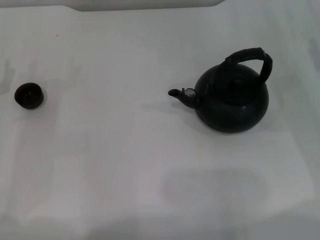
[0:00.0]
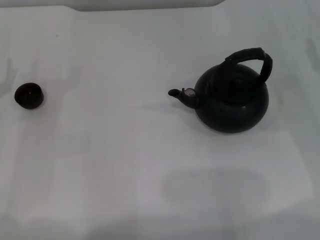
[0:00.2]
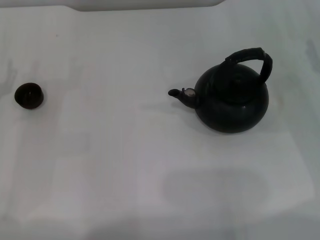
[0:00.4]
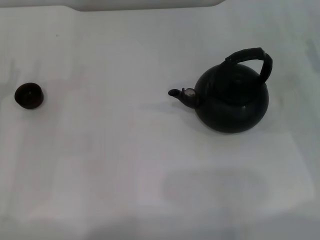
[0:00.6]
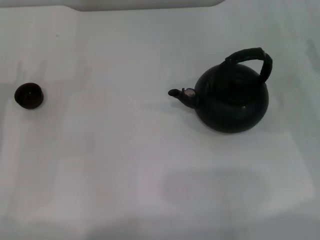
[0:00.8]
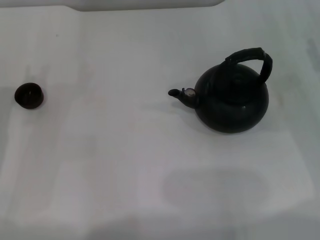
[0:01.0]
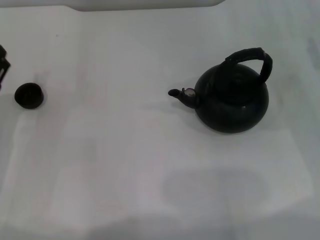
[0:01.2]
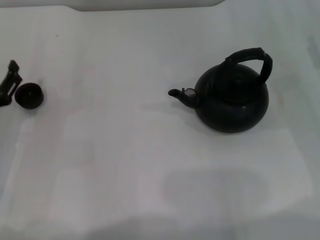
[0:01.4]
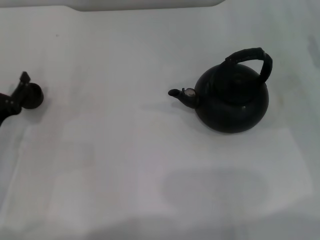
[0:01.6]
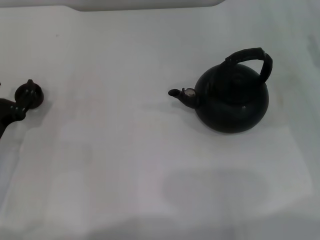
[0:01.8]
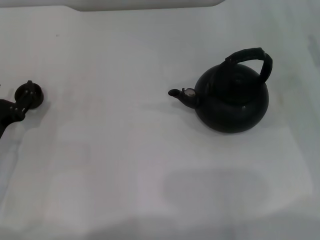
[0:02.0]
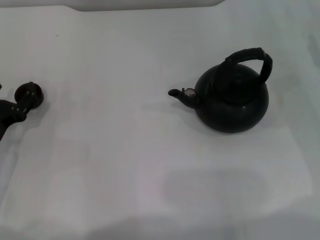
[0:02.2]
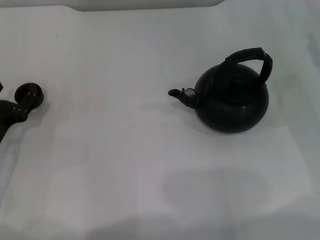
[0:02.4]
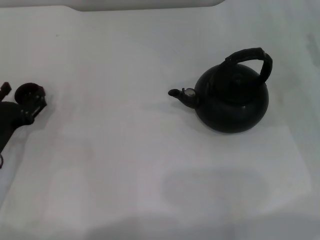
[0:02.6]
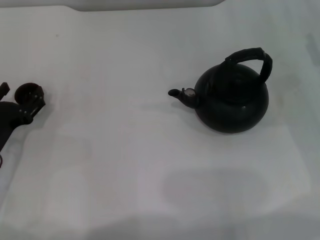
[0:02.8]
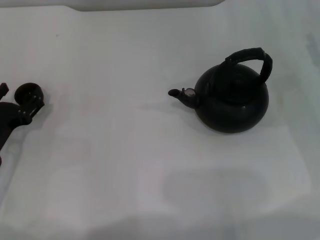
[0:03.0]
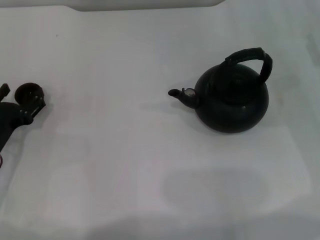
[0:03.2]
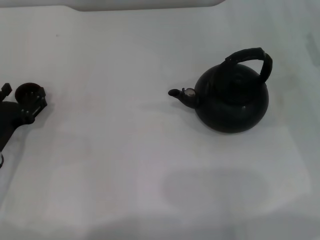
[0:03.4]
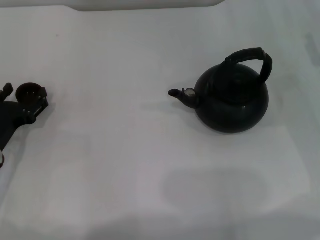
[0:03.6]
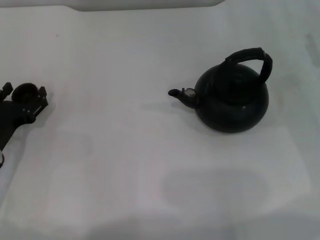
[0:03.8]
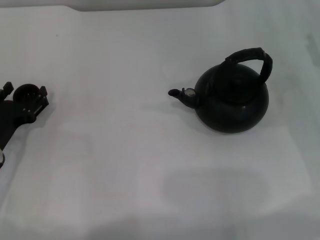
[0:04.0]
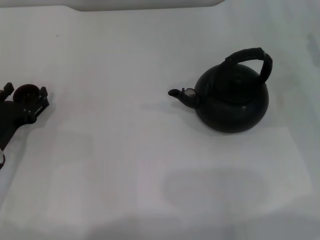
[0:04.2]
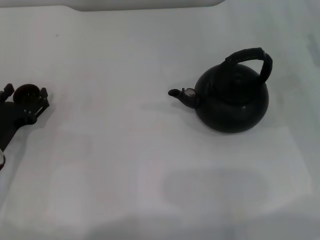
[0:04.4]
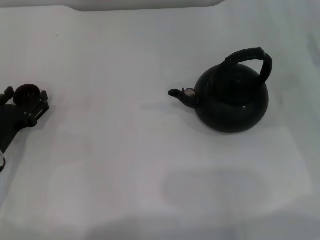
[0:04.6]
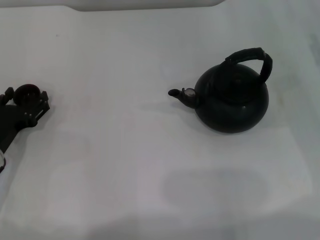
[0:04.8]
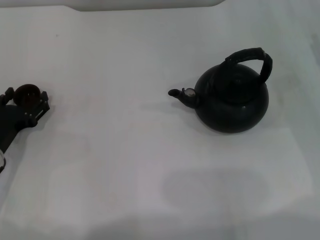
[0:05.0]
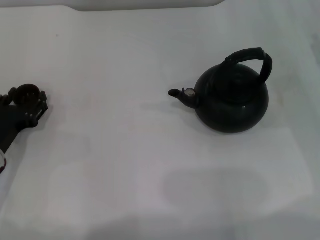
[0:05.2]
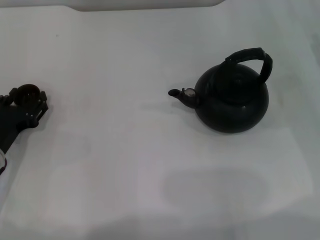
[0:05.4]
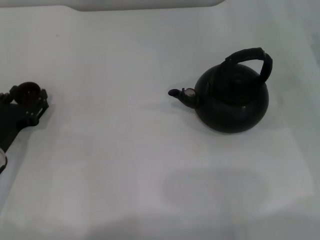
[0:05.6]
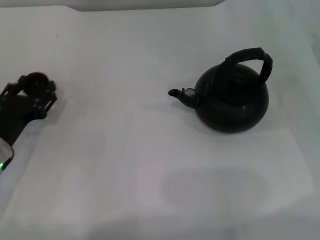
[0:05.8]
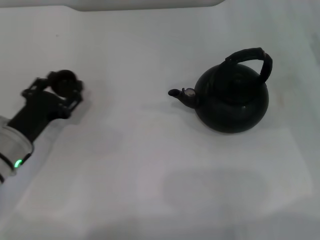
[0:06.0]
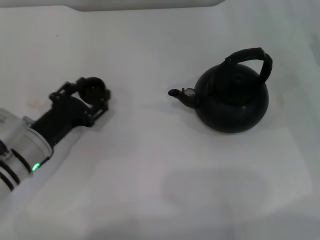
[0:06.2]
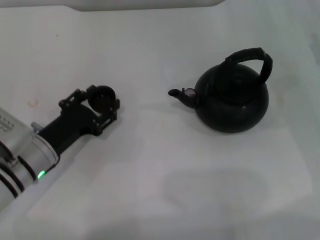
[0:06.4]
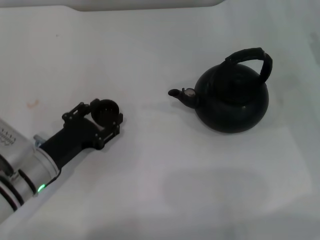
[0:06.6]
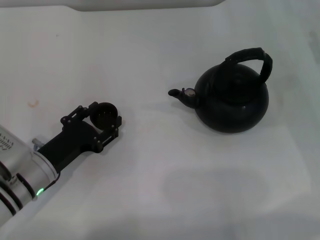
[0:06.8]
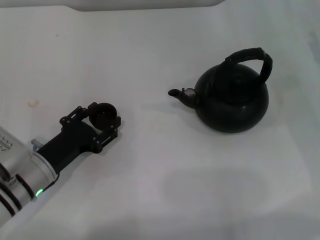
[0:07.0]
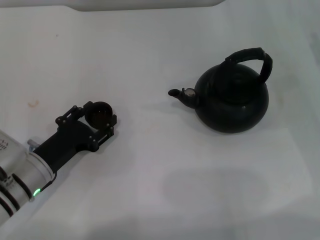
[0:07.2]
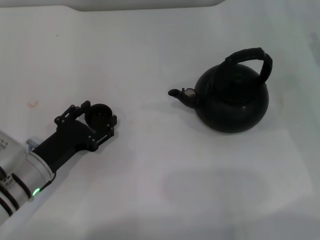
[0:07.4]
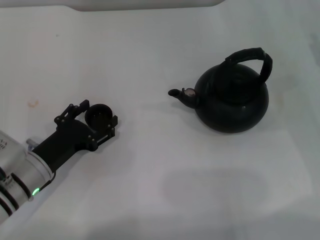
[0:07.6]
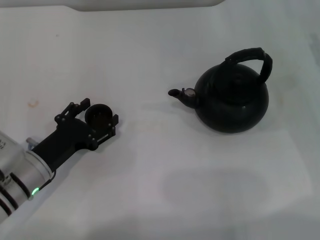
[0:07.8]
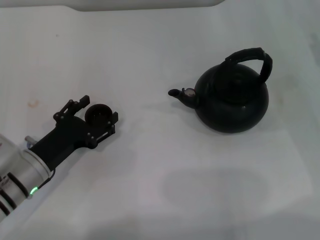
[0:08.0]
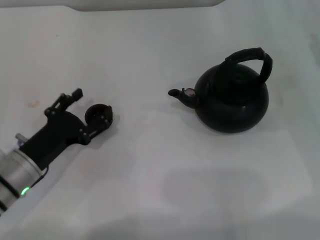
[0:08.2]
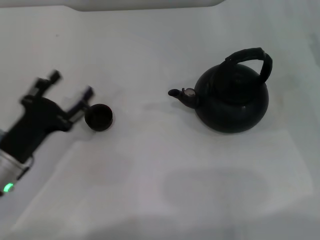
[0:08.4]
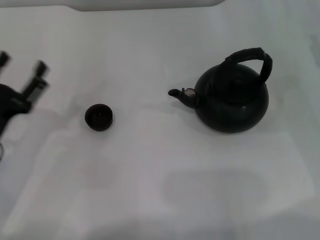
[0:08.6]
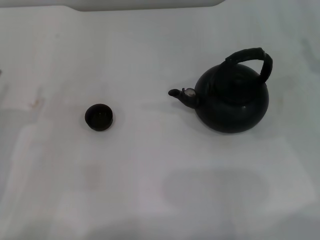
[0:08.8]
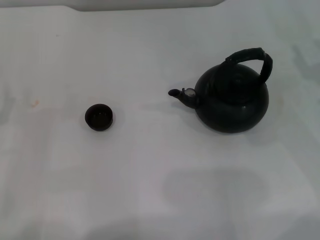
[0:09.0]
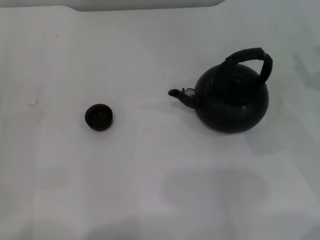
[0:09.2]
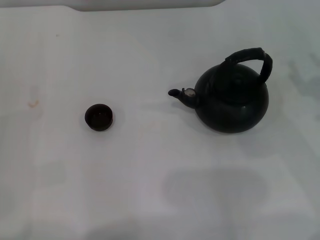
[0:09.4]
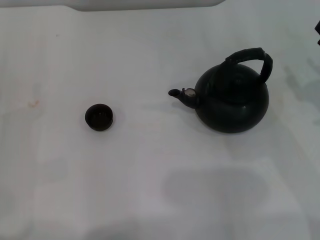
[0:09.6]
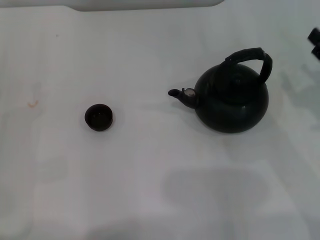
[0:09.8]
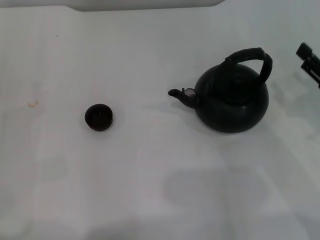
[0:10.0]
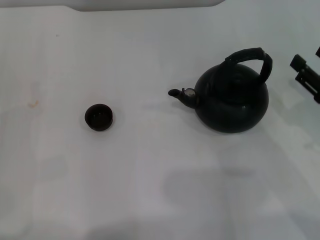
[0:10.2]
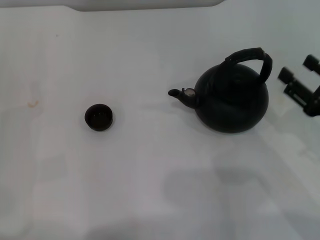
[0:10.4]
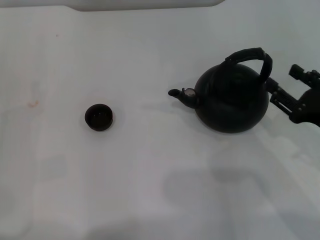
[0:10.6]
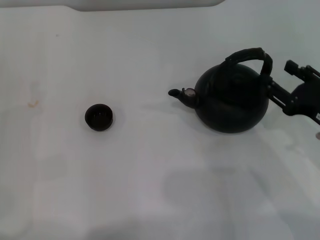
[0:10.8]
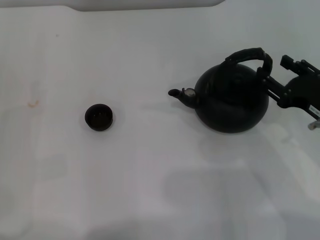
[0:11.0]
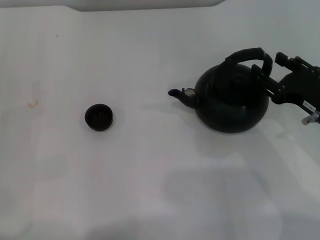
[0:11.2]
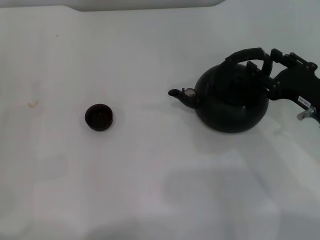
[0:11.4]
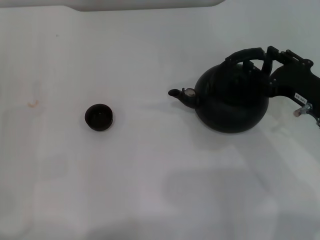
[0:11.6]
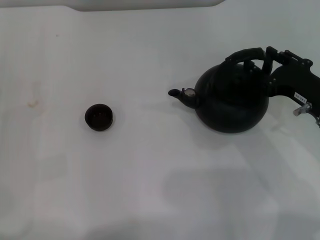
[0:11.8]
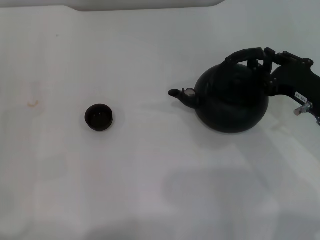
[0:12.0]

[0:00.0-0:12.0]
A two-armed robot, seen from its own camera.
Task of the whole recording: Grasp the handle of the teapot with one hand and pour tea into the teacup.
Step, 0:00.0 to 0:06.0: Pick up the teacup with the left gripper.
Step, 0:06.2 to 0:08.4: Place the teacup in the center of view with the left gripper.
0:00.0 to 0:01.6: The left gripper changes place by approximately 5 cm.
0:01.6 to 0:03.0: There are only small adjustments of the grippers.
0:03.0 to 0:04.4: Both grippers stay about where they are.
0:04.4 to 0:06.0: The left gripper closes up.
0:06.0 to 0:07.6: The left gripper opens.
0:07.6 to 0:09.0: The left gripper moves to the left, some 10 cm.
0:09.0 to 0:10.4: The right gripper travels backward by about 10 cm.
0:10.4 to 0:12.0: The right gripper moves forward, some 5 cm.

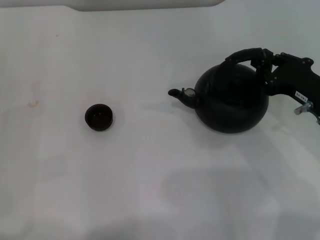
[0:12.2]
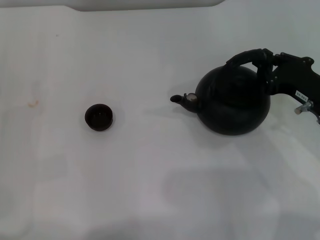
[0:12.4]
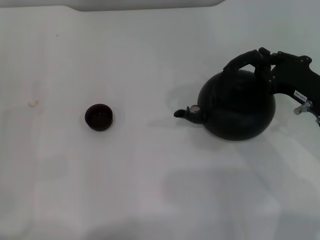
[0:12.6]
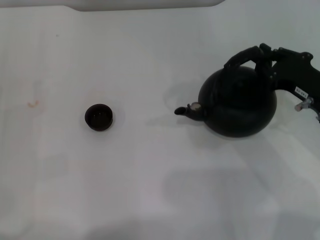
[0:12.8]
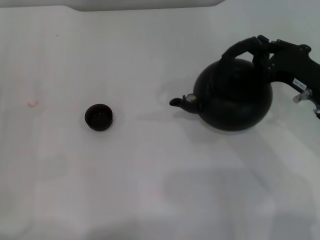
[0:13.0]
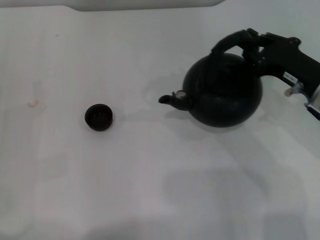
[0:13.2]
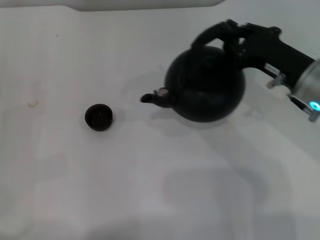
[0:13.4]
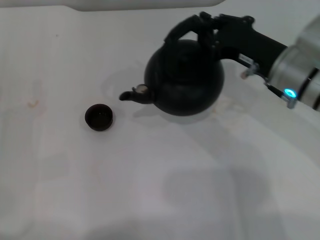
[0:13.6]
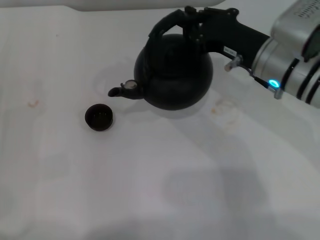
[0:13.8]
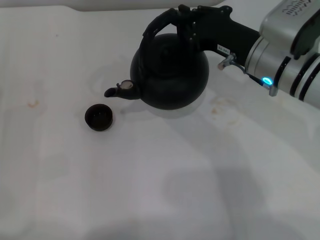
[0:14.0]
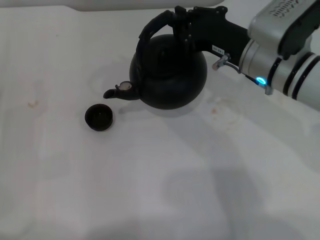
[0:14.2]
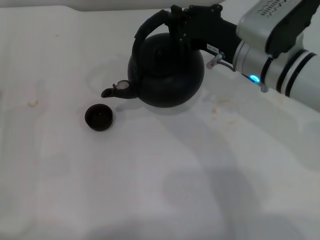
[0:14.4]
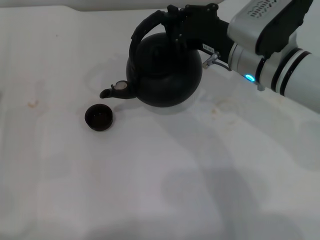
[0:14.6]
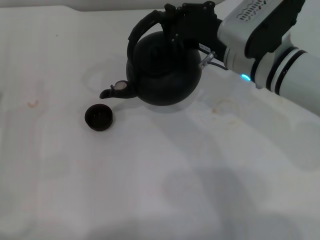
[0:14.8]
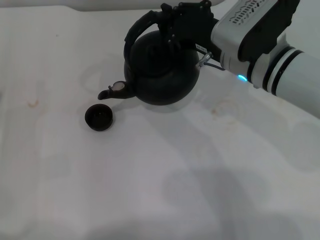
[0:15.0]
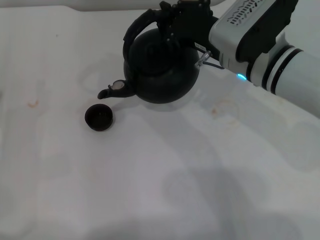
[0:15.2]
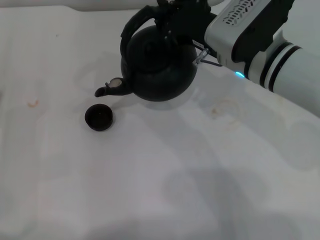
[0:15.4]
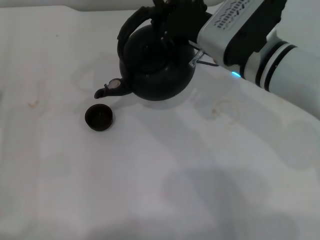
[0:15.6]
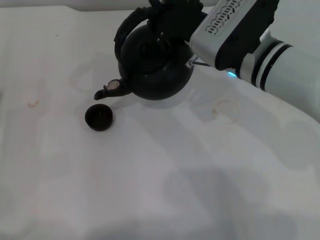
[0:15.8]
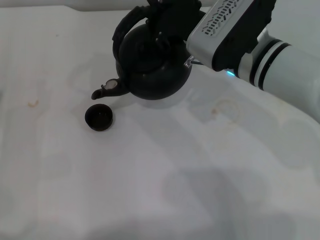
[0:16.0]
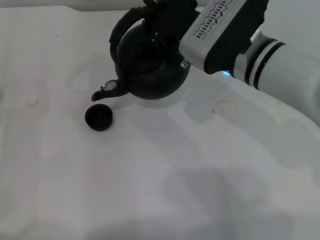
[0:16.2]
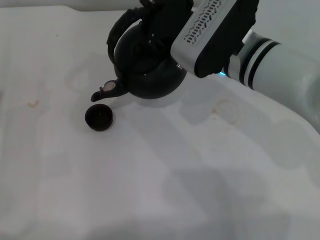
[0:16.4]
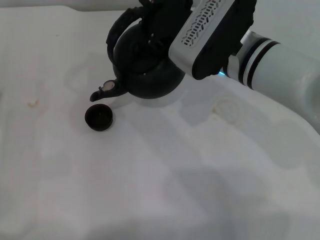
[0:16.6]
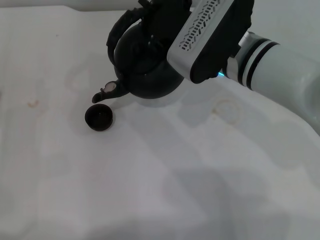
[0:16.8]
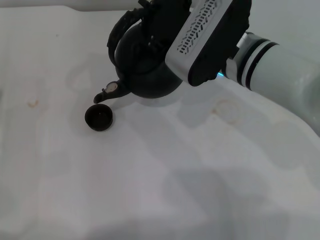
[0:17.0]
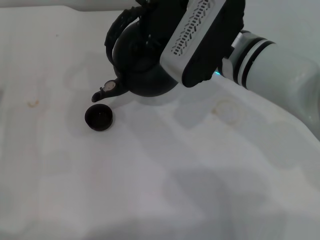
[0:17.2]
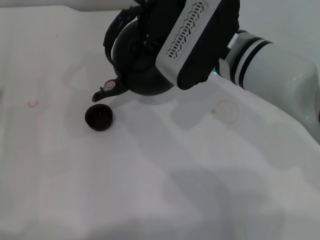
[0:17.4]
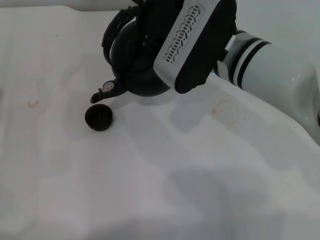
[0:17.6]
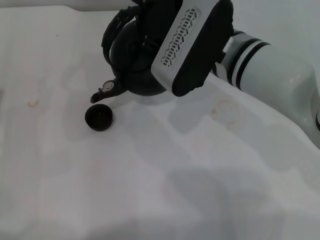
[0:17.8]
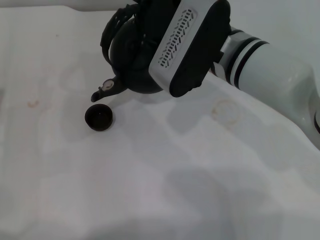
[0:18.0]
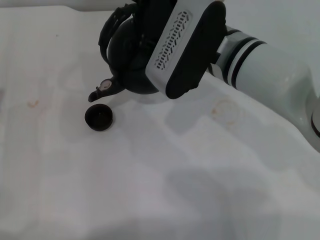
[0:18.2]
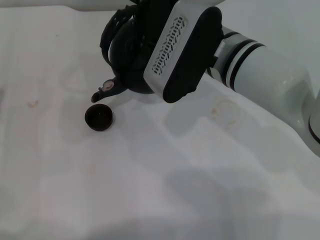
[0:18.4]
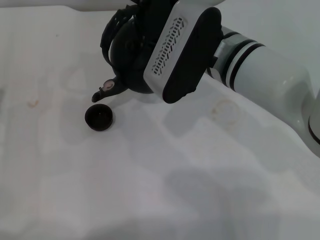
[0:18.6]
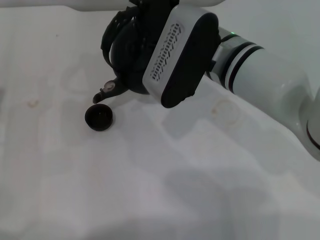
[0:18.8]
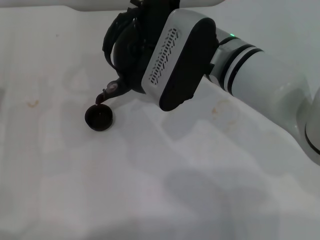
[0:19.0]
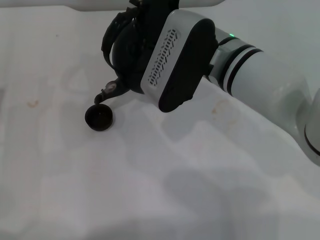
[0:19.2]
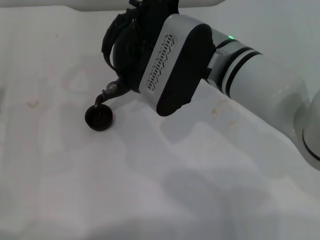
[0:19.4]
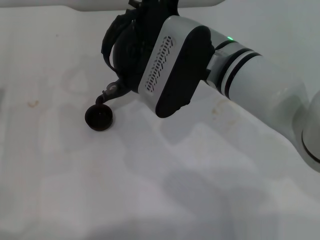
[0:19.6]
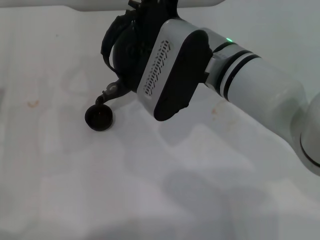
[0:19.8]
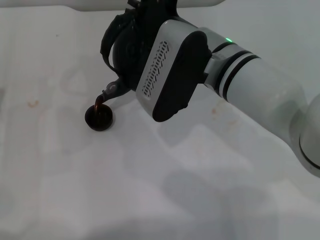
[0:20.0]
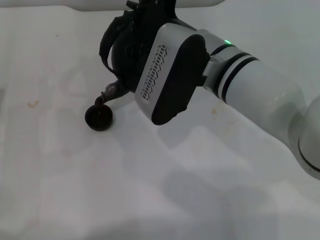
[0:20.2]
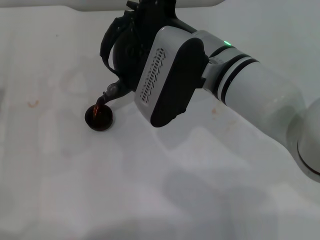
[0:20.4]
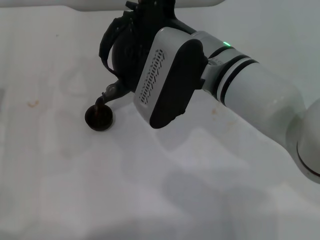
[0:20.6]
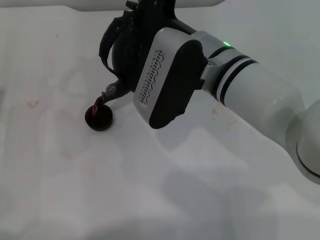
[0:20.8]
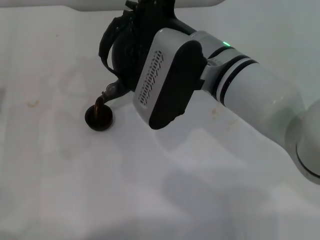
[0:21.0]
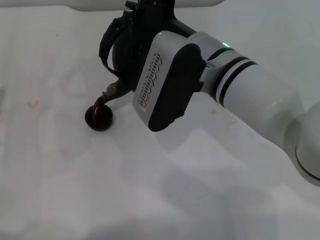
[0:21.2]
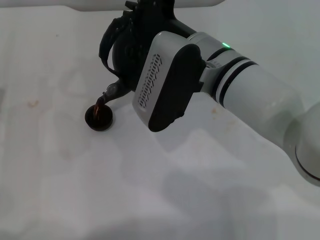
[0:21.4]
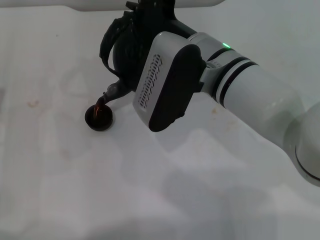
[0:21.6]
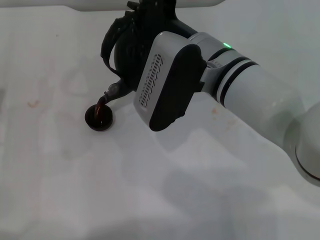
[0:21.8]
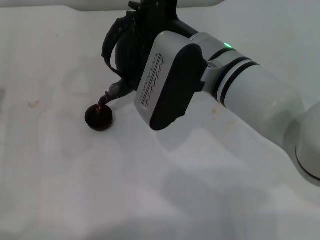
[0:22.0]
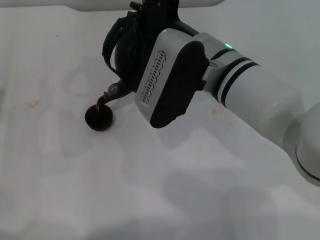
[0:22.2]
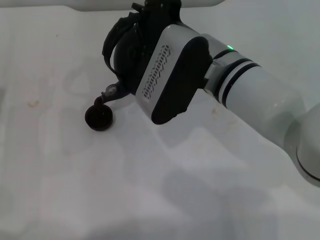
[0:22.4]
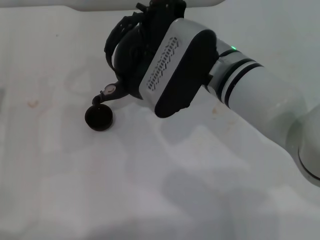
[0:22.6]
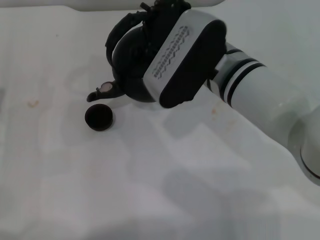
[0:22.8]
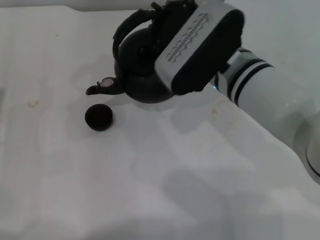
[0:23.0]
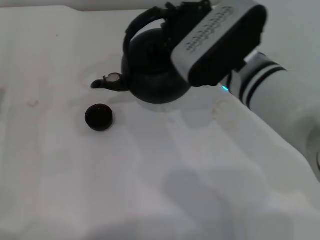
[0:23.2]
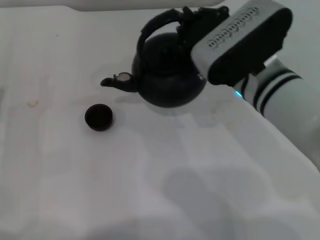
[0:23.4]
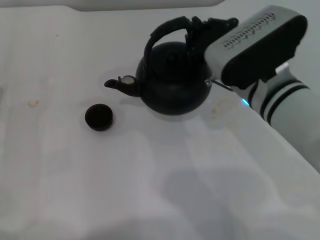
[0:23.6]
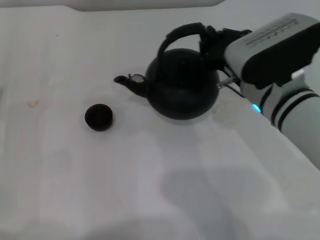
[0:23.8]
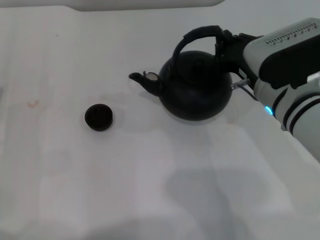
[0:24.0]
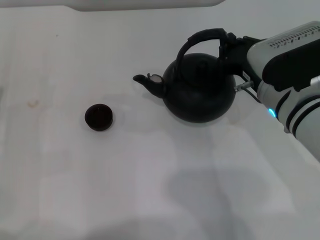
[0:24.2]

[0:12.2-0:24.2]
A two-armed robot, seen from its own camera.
Task of the whole recording: Grasp the handle of the teapot with one hand and pour tea into the teacup.
Step, 0:13.4 to 0:23.2: Pour tea into the teacup with the right gripper.
0:12.2 to 0:13.8: The right gripper goes some 10 cm to the left and forward.
0:13.8 to 0:15.2: The grippers move only a little.
0:15.2 to 0:16.6: The grippers move only a little.
0:16.6 to 0:18.2: The grippers move only a little.
0:18.2 to 0:19.8: The grippers make only small movements.
0:19.8 to 0:21.2: Neither gripper changes place.
0:21.2 to 0:22.6: The grippers move only a little.
0:22.6 to 0:24.2: The right gripper goes roughly 10 cm to the right.
